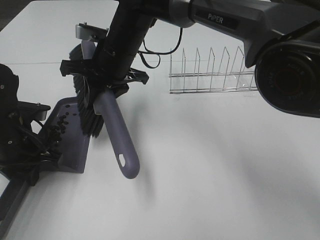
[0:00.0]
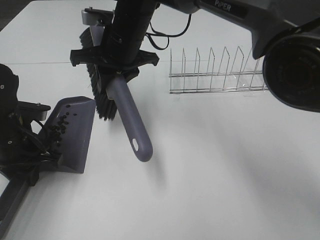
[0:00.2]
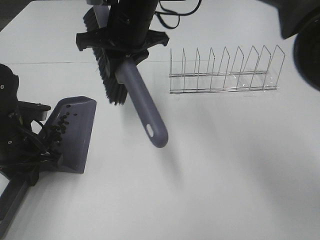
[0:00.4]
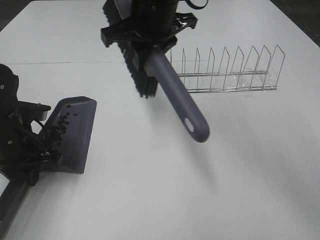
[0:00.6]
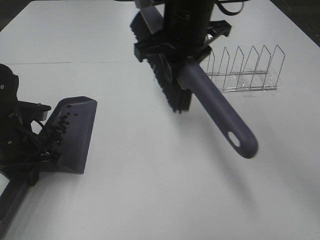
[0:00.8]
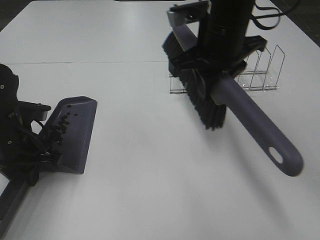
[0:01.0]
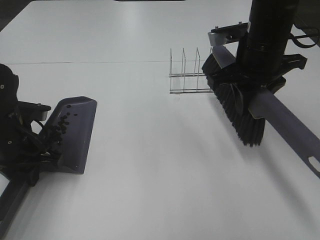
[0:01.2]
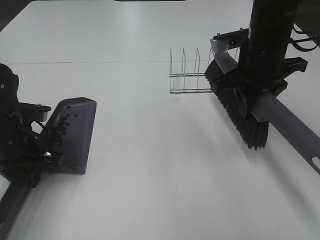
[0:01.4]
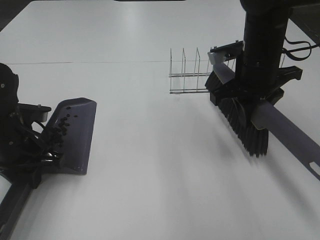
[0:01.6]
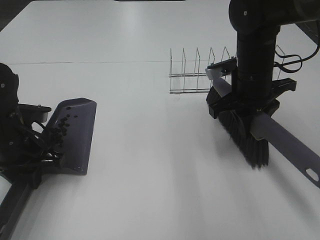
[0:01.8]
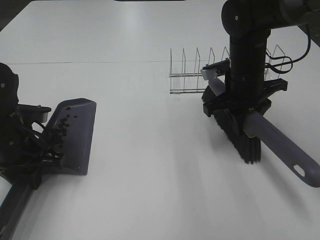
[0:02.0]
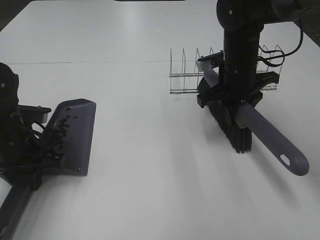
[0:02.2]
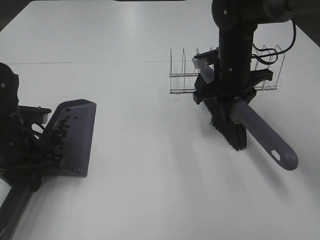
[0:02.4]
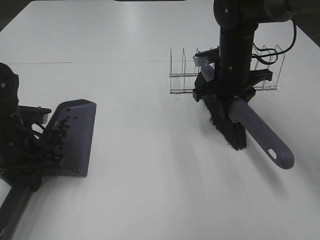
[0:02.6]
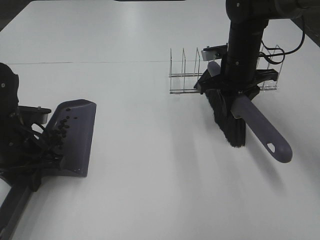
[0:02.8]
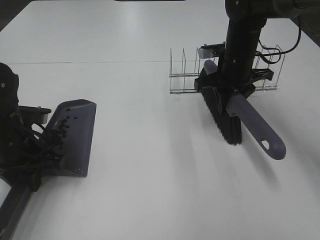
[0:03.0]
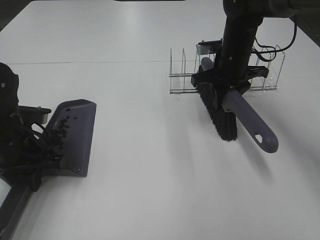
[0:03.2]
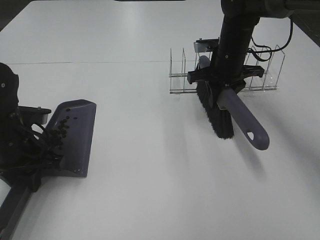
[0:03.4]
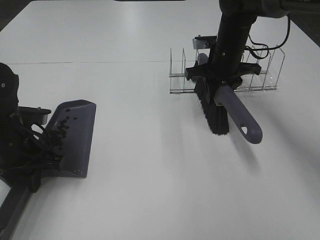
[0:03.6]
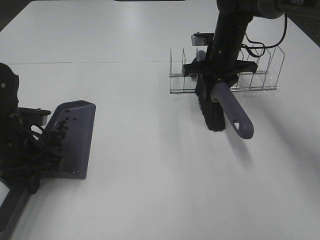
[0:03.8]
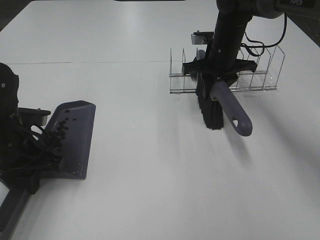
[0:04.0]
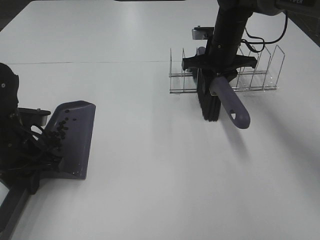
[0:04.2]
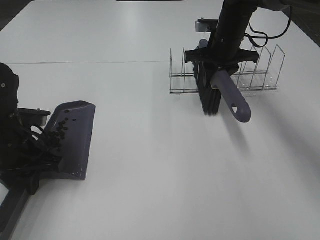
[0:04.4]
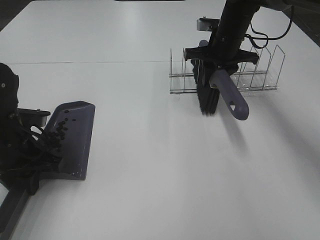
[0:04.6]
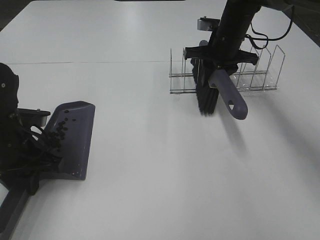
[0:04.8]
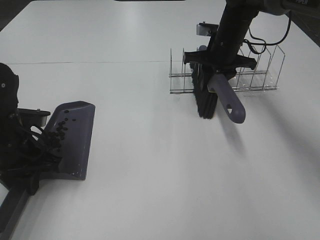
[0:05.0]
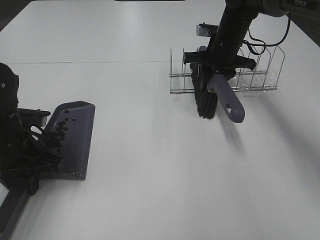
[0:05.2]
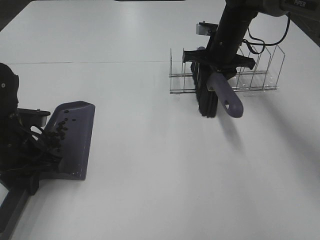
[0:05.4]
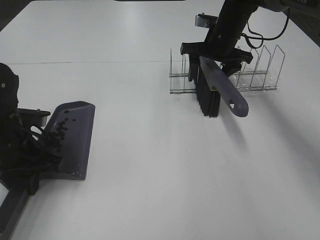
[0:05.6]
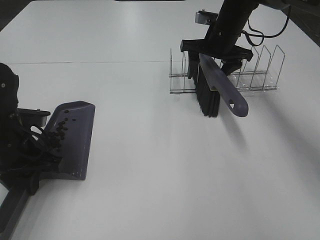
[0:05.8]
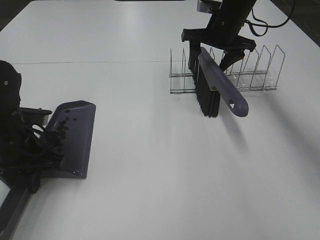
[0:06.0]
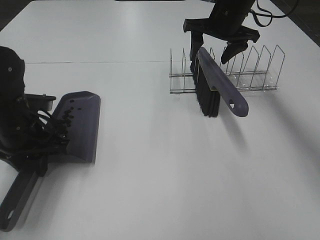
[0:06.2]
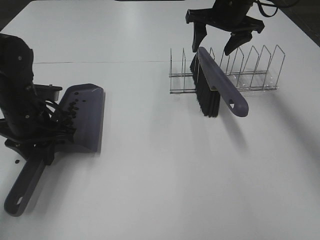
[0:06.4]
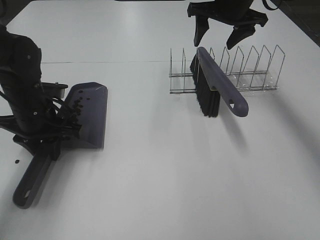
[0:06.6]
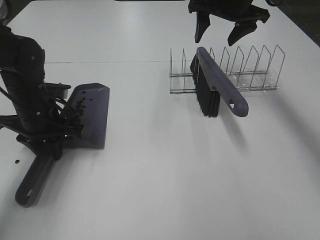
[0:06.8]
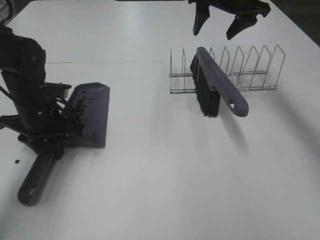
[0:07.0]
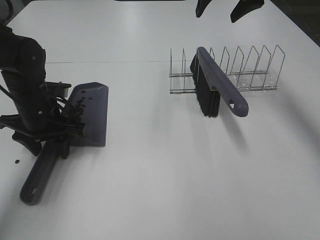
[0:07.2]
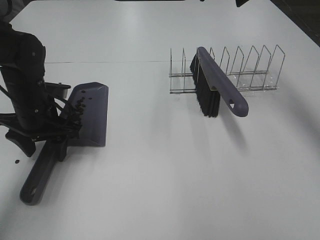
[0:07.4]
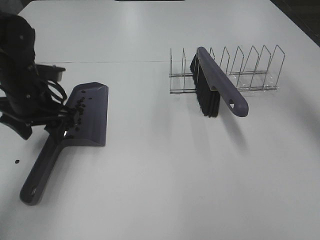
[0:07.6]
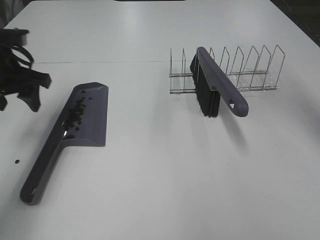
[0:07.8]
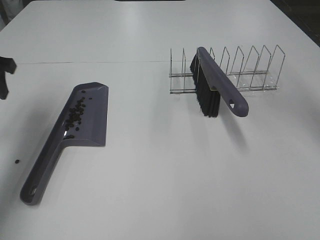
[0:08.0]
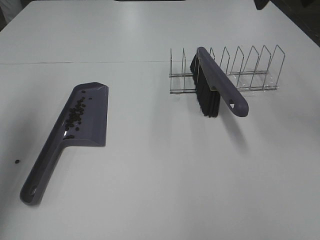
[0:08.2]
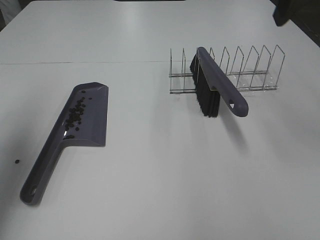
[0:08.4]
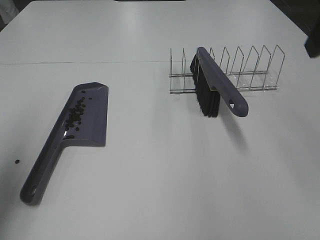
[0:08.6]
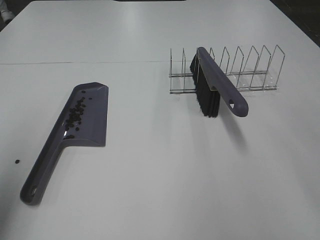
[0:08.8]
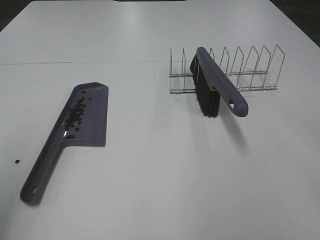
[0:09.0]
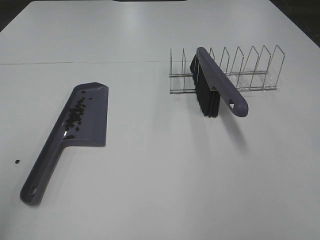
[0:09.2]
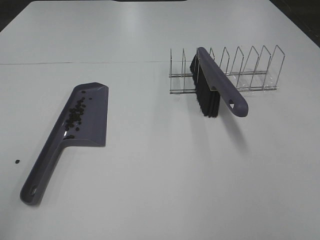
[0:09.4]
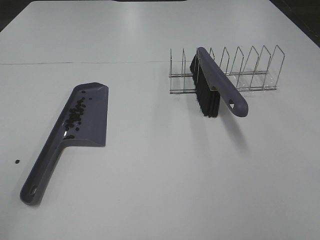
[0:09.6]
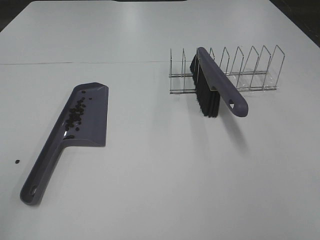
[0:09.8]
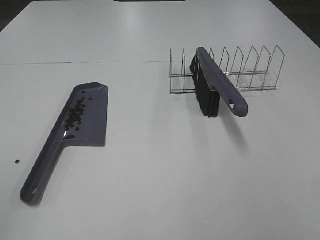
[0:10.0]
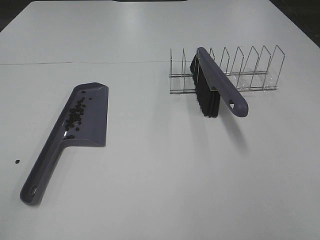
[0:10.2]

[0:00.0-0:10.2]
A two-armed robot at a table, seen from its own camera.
Task of the whole recording: Sweep Coffee Bean.
Step, 0:00.0 to 0:05.8: Right hand:place the broom on the rack.
Step, 0:06.0 to 0:07.2: Left hand:place the dustpan on the table.
0:00.0 to 0:01.4: The right gripper travels to the right by approximately 20 cm.
0:01.4 to 0:03.0: The right gripper heads forward and downward, covering roughly 10 cm.
0:03.0 to 0:04.4: The right gripper goes approximately 5 cm forward.
0:04.4 to 0:05.8: The right gripper opens its fingers.
0:05.8 to 0:07.2: The right gripper is displaced upward by some 15 cm. Meanwhile the left gripper travels forward by roughly 5 cm.
0:07.2 to 0:08.8: The right gripper moves backward, roughly 30 cm; the left gripper shifts approximately 30 cm backward, upward and to the left.
0:08.8 to 0:10.2: The left gripper is displaced backward by some 15 cm.

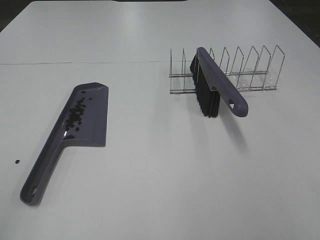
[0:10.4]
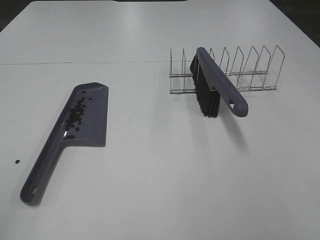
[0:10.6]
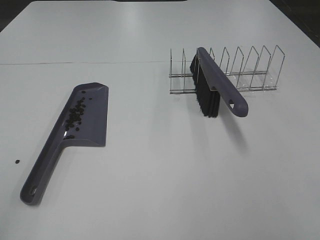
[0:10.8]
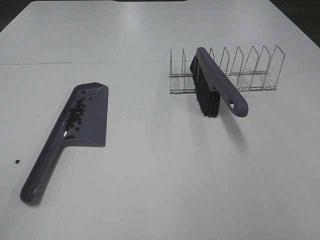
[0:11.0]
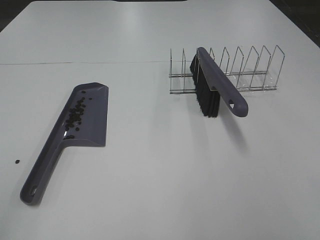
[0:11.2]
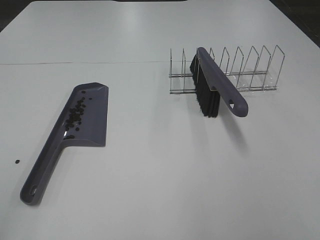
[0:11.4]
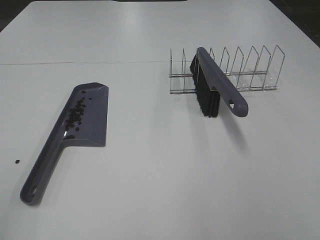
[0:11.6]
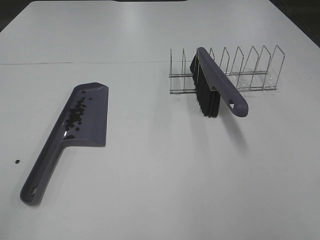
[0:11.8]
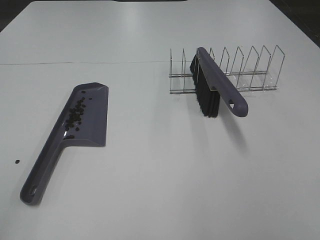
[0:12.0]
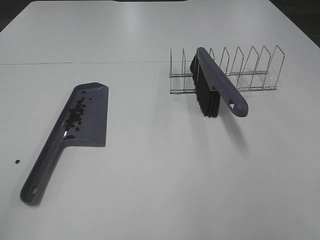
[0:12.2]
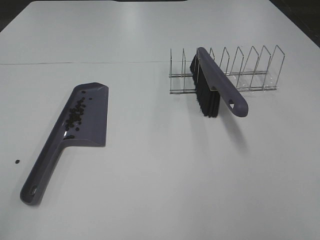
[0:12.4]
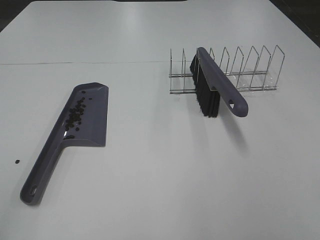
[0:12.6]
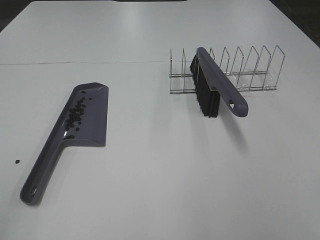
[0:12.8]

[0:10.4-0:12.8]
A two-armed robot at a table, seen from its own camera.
Task of the whole recording: Sweep Coffee Bean.
0:11.6 to 0:12.8: The two grippers keep their place.

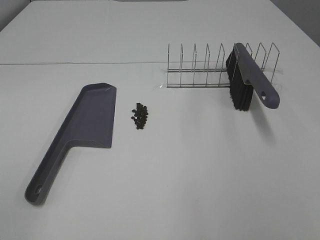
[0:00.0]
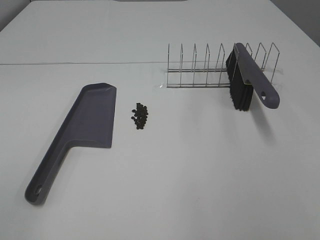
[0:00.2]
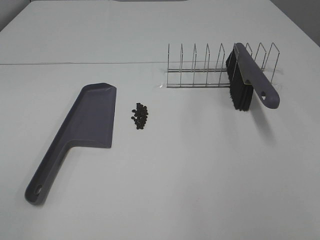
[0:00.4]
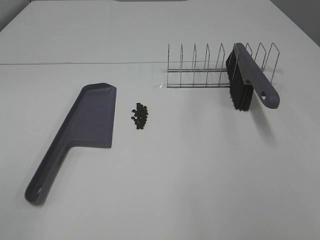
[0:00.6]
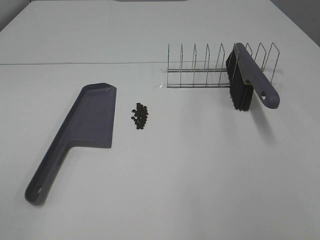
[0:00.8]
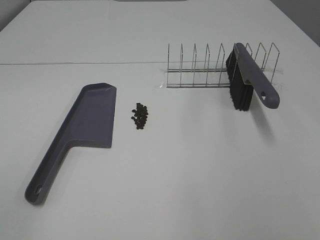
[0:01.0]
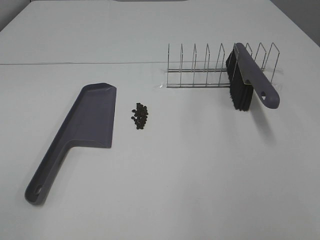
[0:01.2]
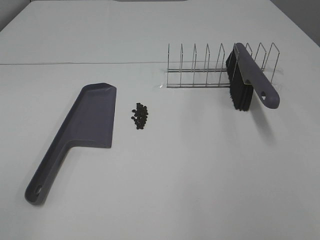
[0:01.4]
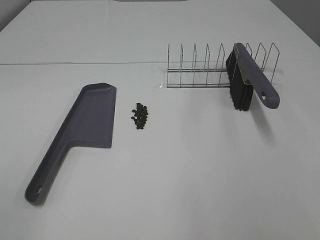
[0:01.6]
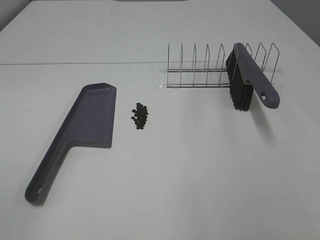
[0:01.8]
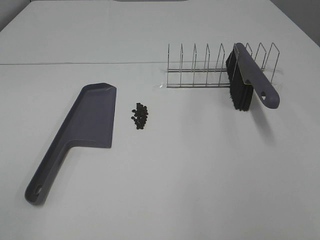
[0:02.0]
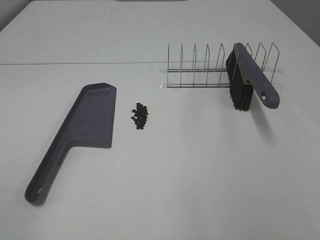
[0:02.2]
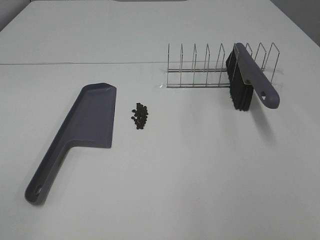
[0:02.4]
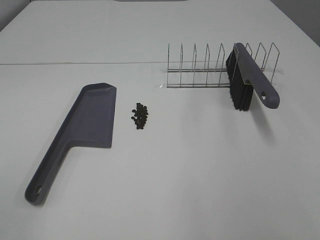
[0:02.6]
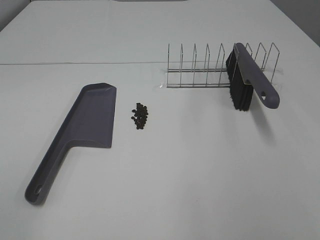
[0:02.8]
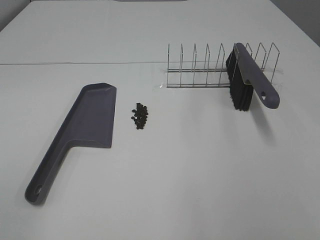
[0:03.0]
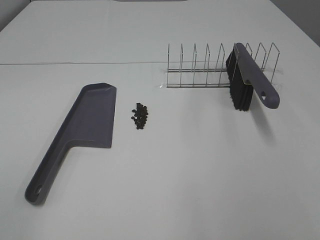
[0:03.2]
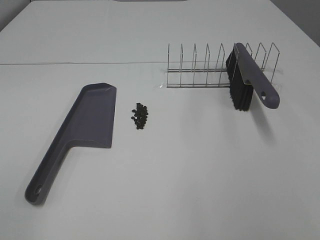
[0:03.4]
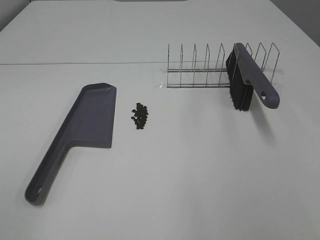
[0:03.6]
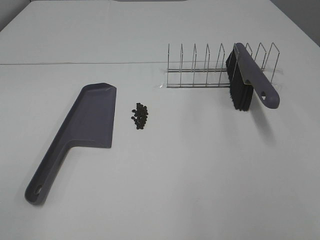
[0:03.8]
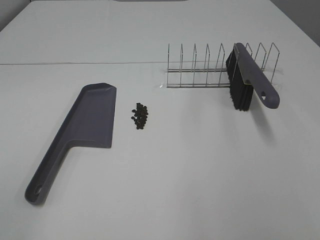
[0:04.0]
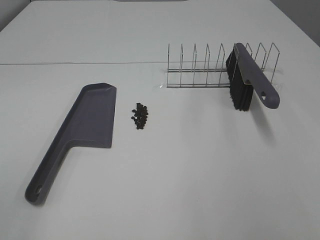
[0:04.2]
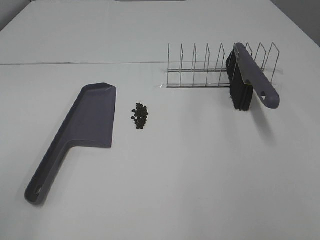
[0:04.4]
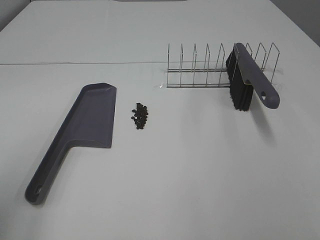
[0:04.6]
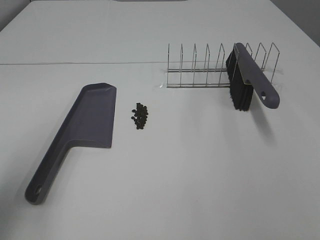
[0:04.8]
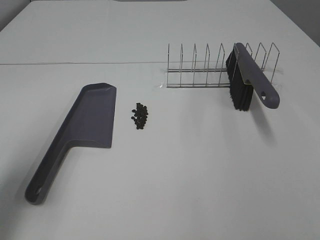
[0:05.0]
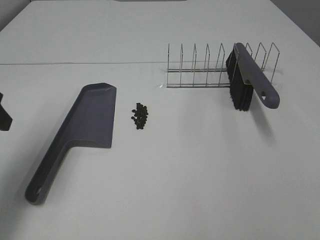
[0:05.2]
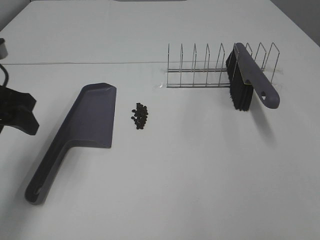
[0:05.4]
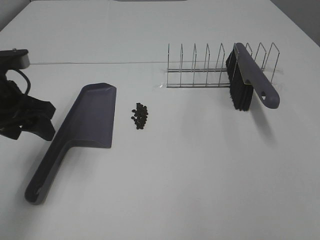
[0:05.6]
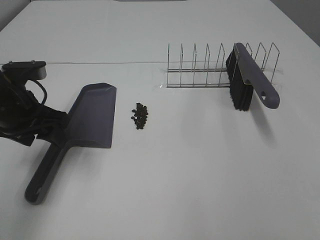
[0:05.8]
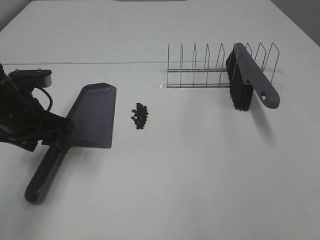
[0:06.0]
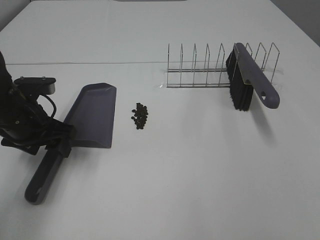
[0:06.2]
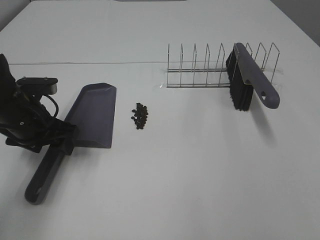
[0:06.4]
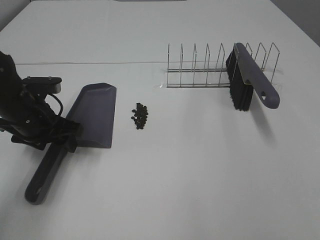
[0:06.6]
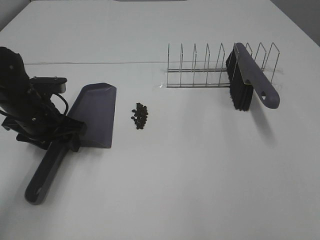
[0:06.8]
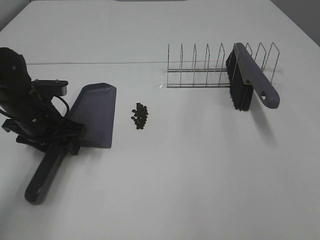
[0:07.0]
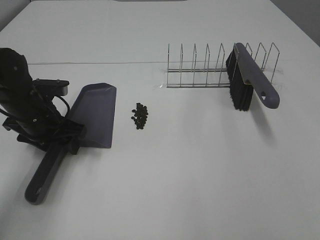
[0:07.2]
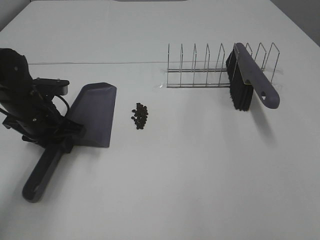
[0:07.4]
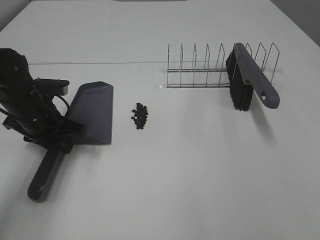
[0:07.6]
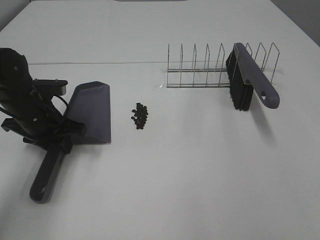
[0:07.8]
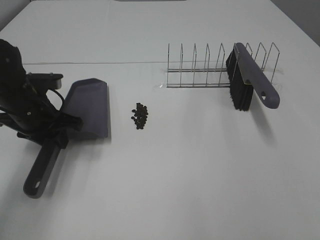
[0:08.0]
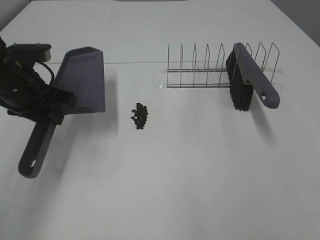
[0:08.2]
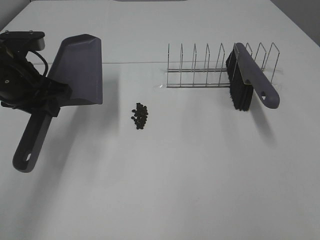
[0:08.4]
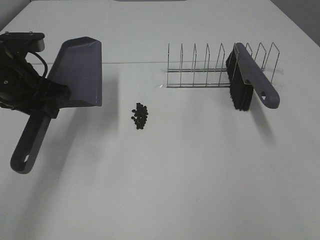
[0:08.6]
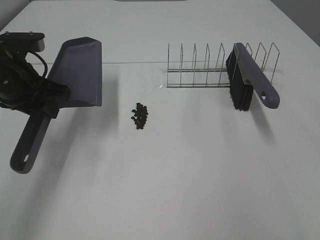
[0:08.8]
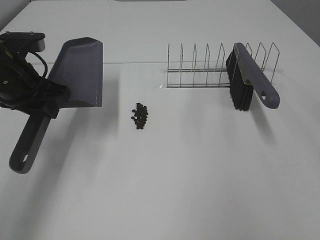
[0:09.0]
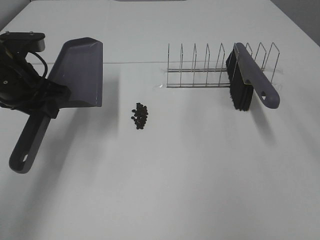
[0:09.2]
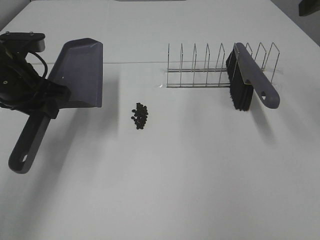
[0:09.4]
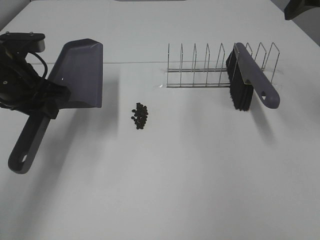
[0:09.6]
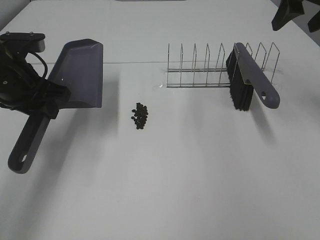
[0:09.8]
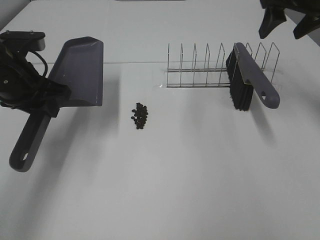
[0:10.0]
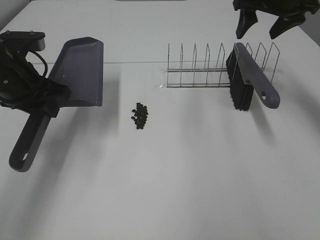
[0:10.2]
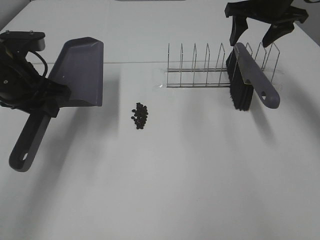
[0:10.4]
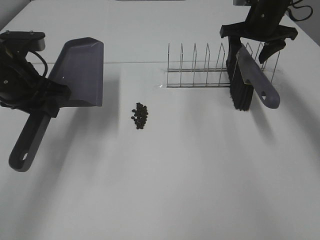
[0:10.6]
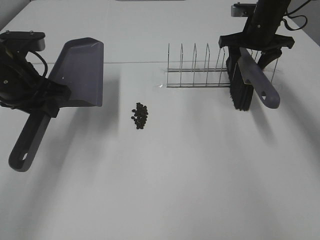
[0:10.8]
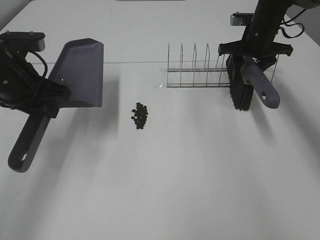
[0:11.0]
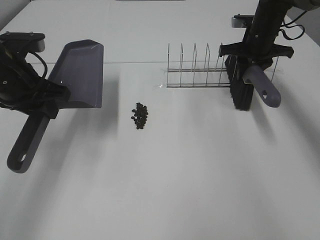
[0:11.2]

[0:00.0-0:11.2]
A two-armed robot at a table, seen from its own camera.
Task of the whole recording: Sweep Coffee Bean.
Step, 0:00.0 to 0:07.6: Left hand: grab the dustpan.
Step, 0:08.4 to 0:11.2: Right hand:grab the broom.
0:00.0 to 0:03.2: Neither gripper changes place.
0:03.2 to 0:04.8: The left gripper travels forward by some 15 cm.
0:04.8 to 0:06.4: The left gripper shifts approximately 25 cm forward and downward.
0:06.4 to 0:08.0: The left gripper closes.
0:08.0 to 0:09.6: The left gripper goes roughly 5 cm upward; the right gripper heads forward, covering about 35 cm.
0:09.6 to 0:11.2: The right gripper is displaced downward and forward by roughly 25 cm, and closes its fingers.
